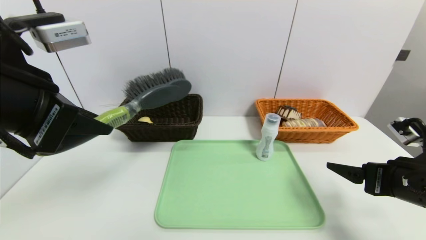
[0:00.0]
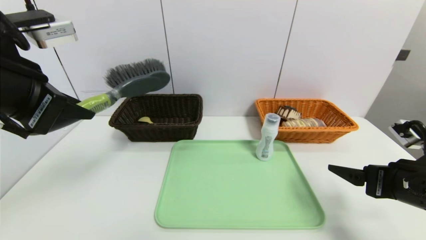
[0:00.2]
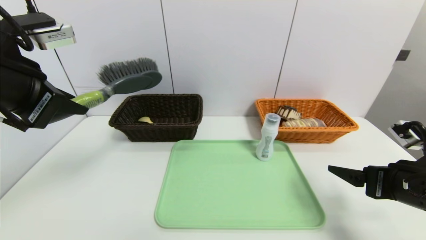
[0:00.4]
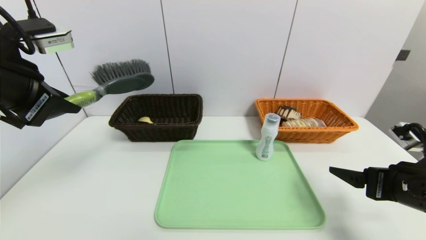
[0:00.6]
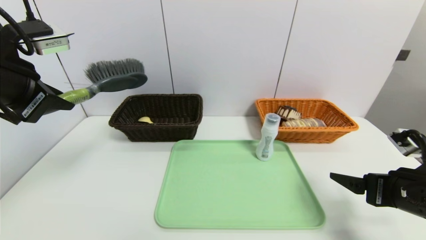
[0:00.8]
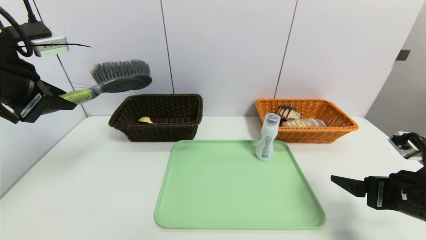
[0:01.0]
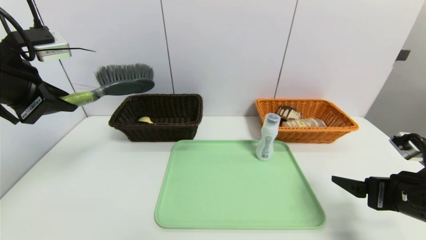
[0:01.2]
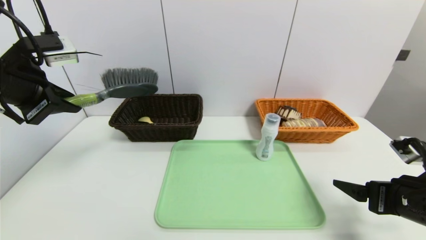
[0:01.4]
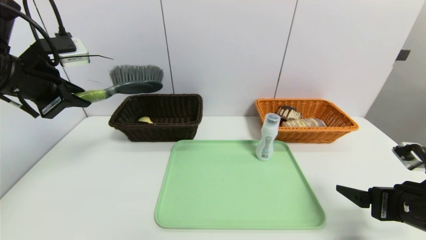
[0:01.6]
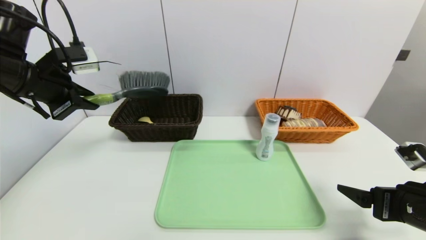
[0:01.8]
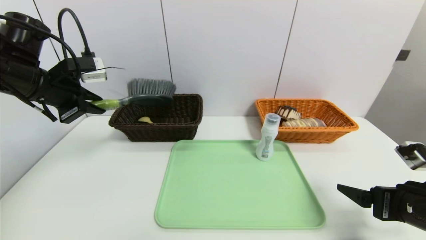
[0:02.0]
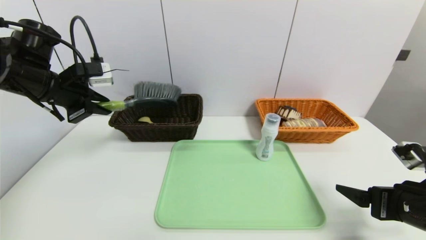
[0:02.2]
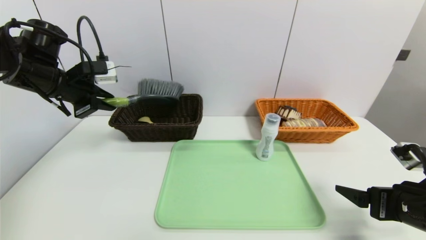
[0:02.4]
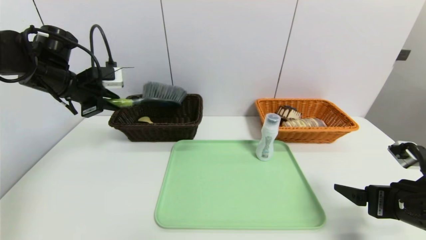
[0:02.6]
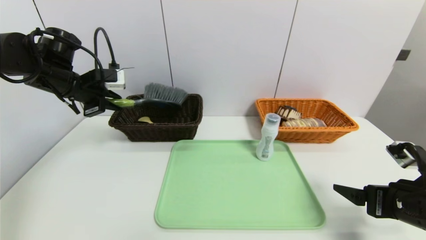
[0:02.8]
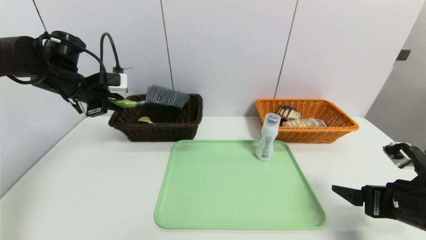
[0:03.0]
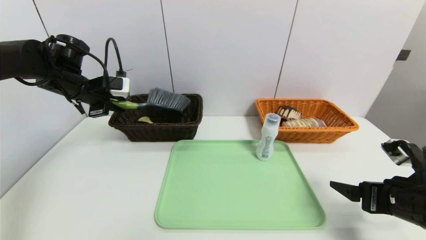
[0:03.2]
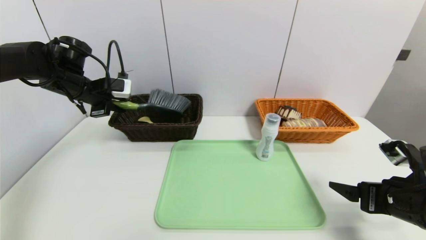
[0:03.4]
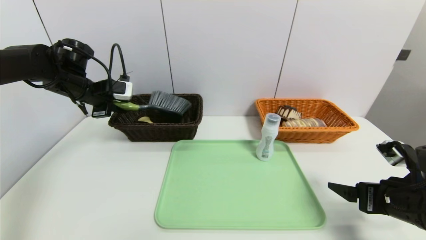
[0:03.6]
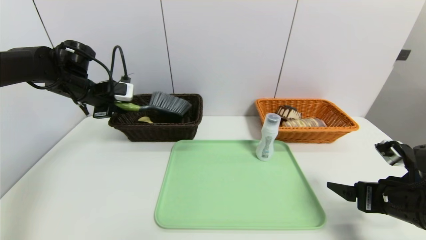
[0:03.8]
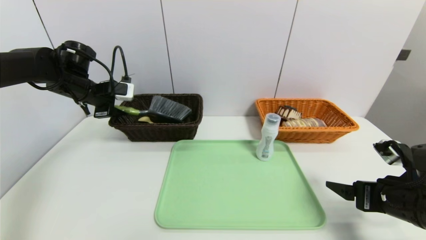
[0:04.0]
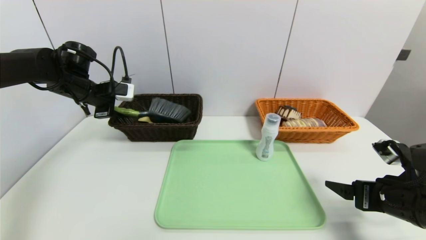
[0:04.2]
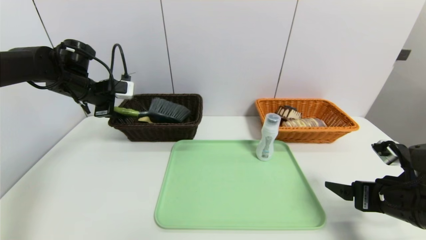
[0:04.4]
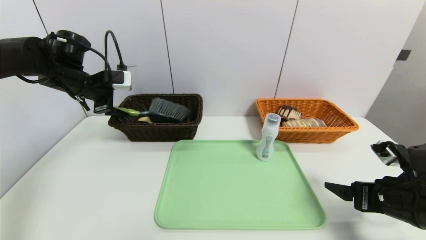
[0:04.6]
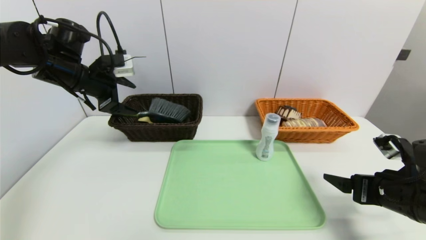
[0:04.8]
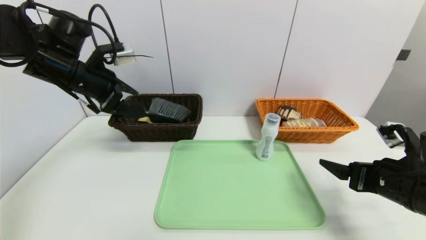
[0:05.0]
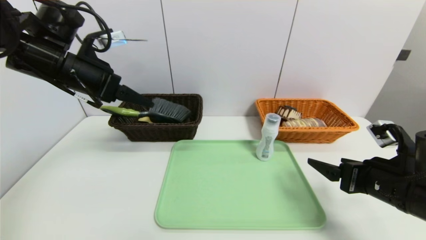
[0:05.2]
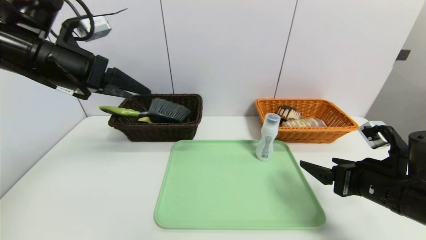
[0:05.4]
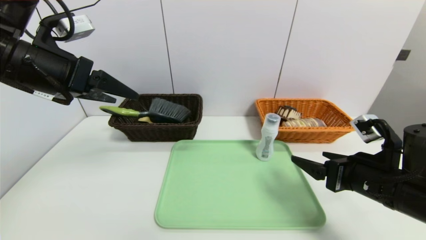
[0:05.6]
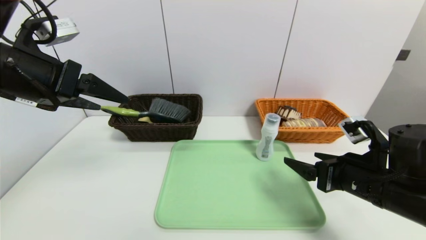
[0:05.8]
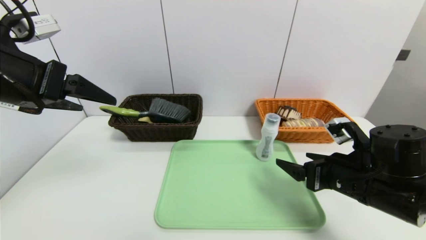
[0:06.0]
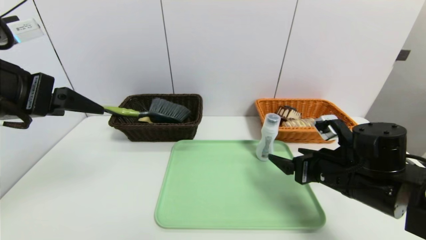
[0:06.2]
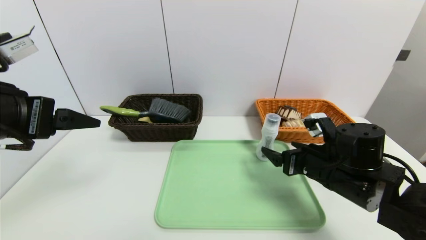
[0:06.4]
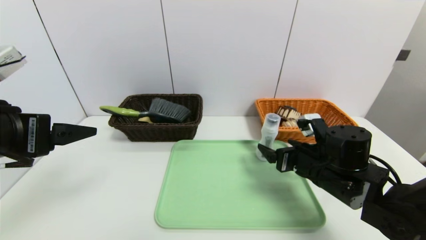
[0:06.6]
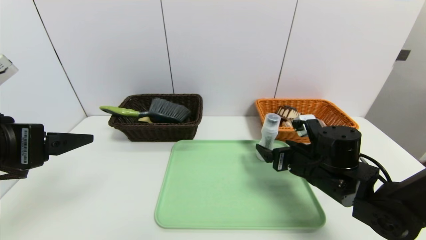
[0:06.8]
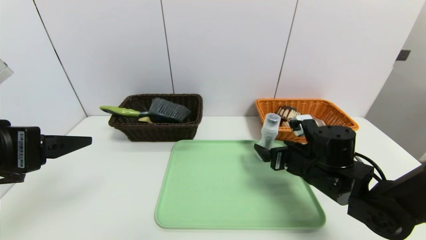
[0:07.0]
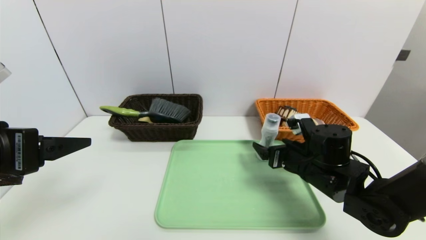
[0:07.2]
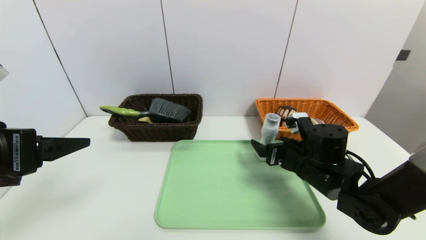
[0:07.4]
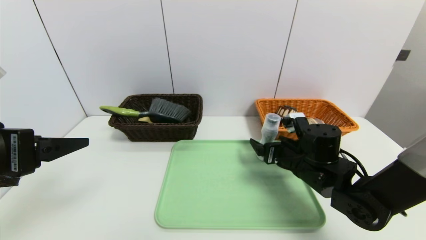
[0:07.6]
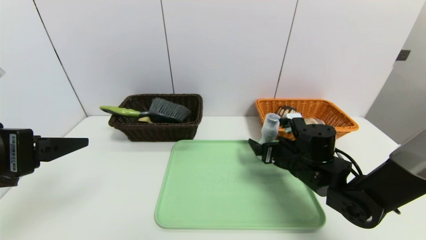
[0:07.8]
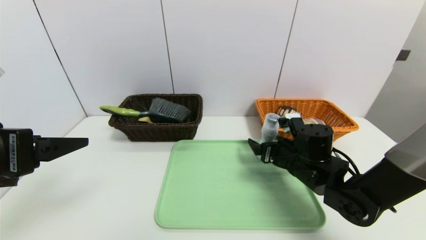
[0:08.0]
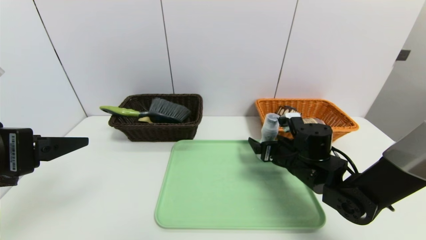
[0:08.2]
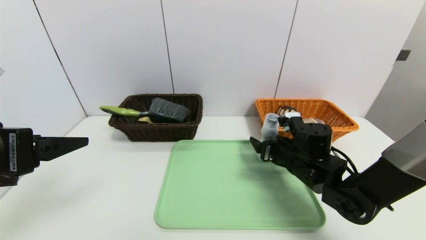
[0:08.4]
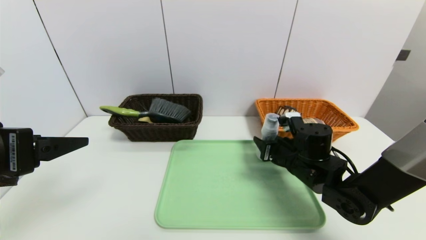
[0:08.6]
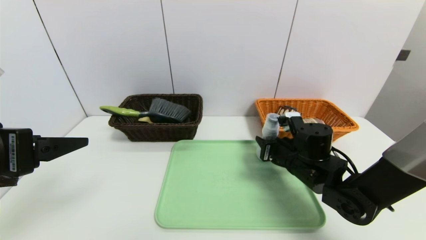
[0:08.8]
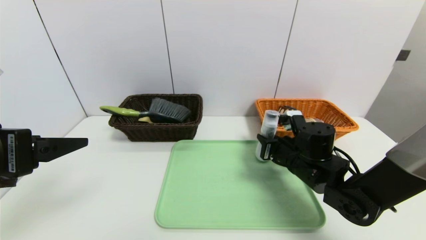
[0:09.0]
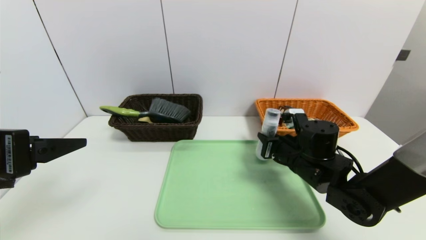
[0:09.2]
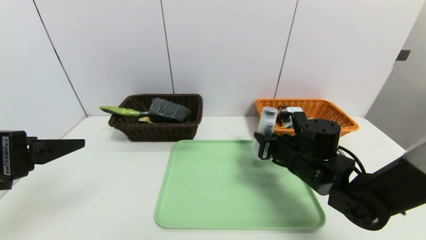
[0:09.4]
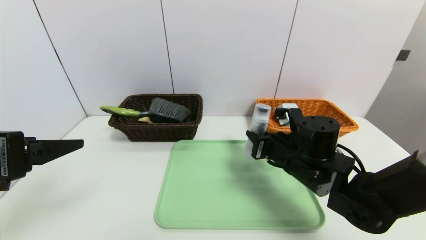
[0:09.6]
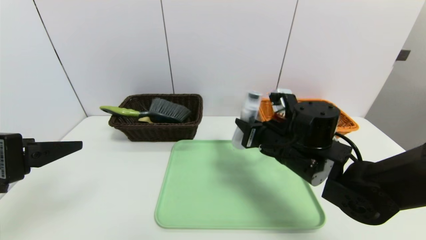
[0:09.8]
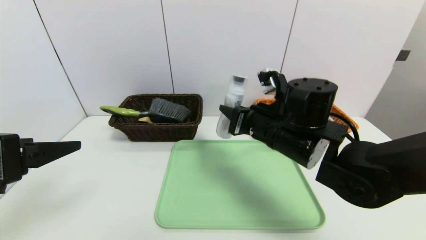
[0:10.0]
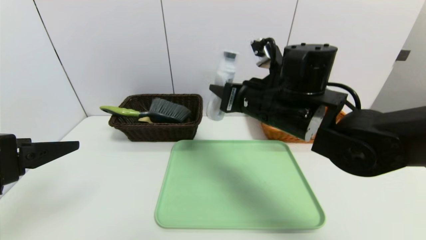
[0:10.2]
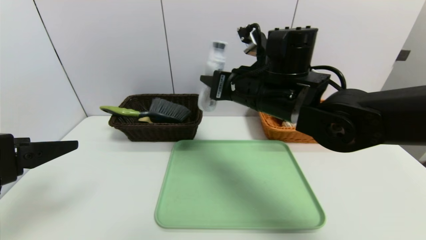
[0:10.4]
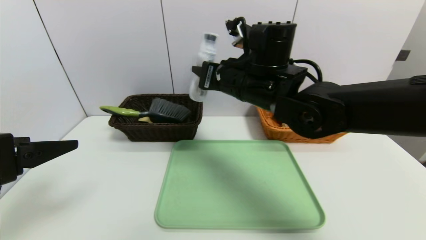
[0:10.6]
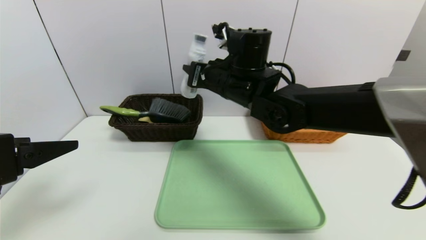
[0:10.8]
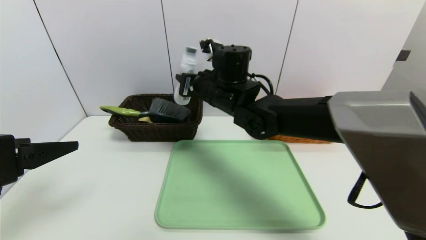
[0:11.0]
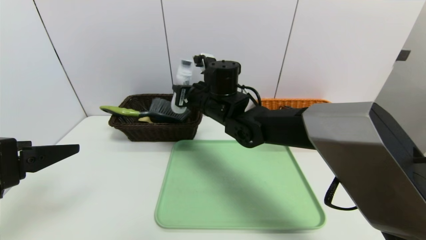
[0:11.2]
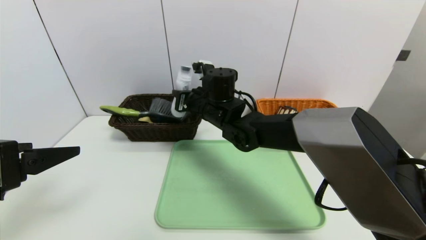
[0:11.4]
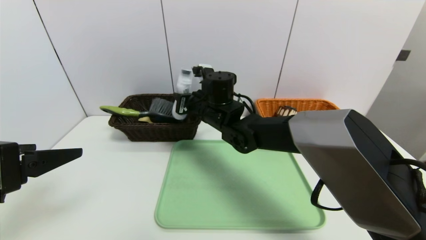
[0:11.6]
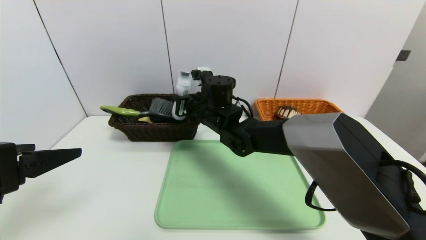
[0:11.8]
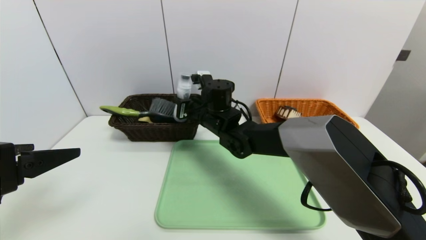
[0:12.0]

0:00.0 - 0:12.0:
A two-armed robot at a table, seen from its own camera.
Task of the whole recording: place the food in the right basket with the right gripper, and place the non food items in the left basket with the left gripper.
Step, 0:00.0 - 0:04.8: Grasp the brush and put it in the left basket.
0:00.0 - 0:01.6: The left gripper travels forward and to the left by roughly 15 cm.
0:01.6 - 0:03.0: The left gripper moves forward and downward, roughly 15 cm.
0:03.0 - 0:04.4: The left gripper opens.
0:04.4 - 0:06.0: The left gripper is displaced backward and upward by some 25 cm. Meanwhile the right gripper shifts approximately 5 cm to the left.
0:06.0 - 0:07.6: The left gripper heads backward and downward, covering some 10 cm, while the right gripper moves forward, about 10 cm.
0:07.6 - 0:09.0: The right gripper closes.
0:09.0 - 0:10.4: The right gripper heads upward and to the left, covering about 20 cm.
0:10.4 - 0:12.0: The right gripper travels downward, forward and to the left by about 15 cm.

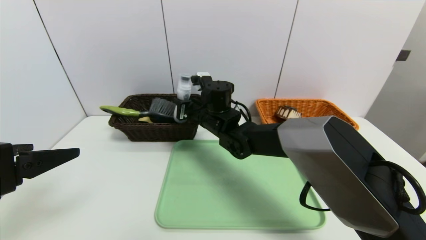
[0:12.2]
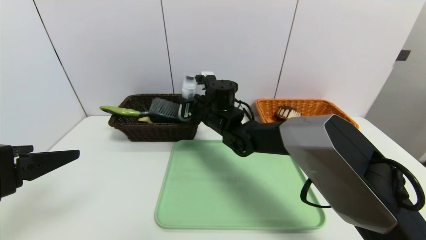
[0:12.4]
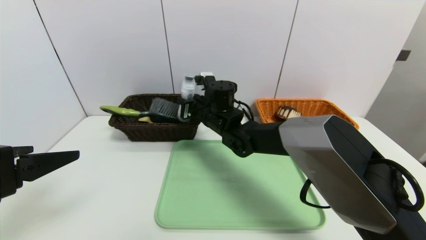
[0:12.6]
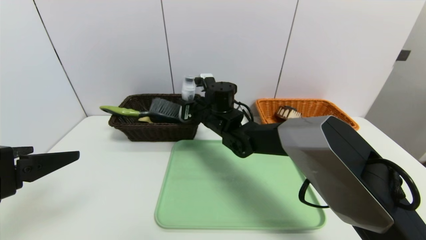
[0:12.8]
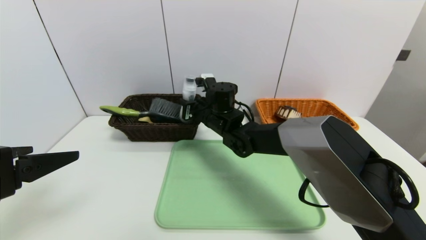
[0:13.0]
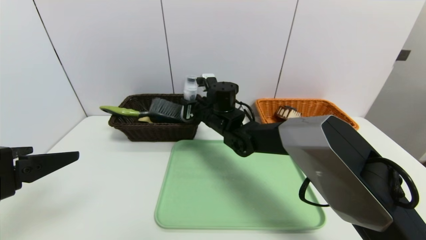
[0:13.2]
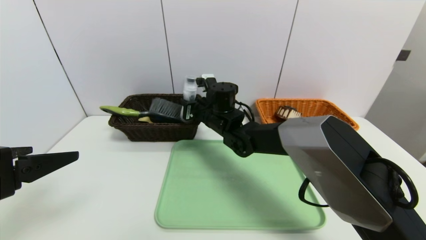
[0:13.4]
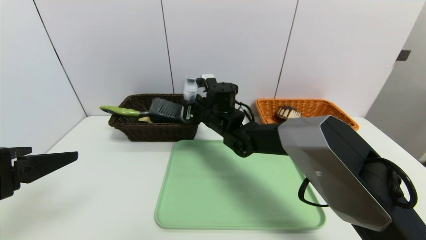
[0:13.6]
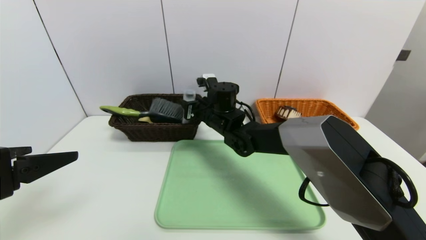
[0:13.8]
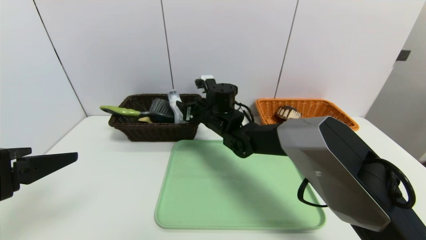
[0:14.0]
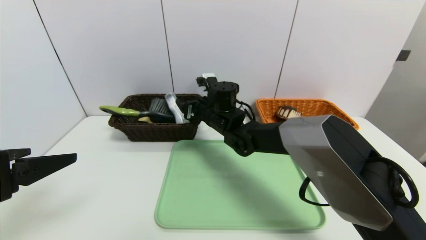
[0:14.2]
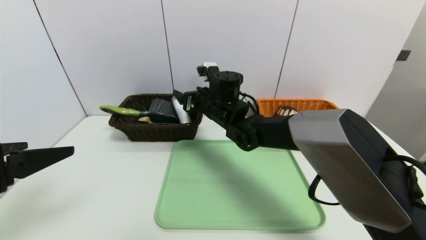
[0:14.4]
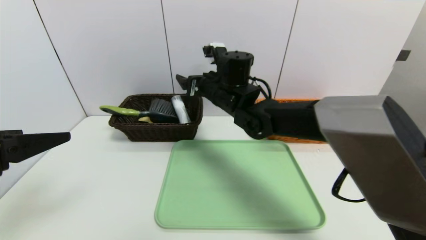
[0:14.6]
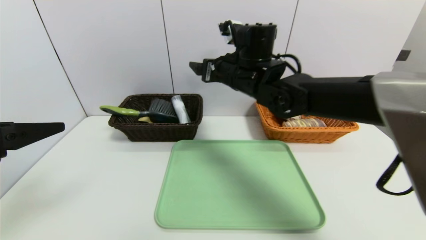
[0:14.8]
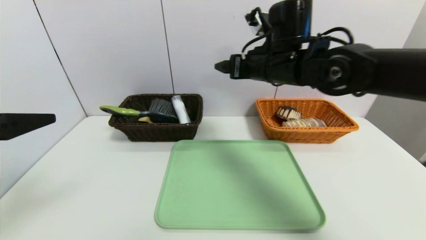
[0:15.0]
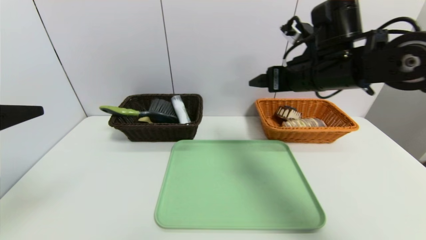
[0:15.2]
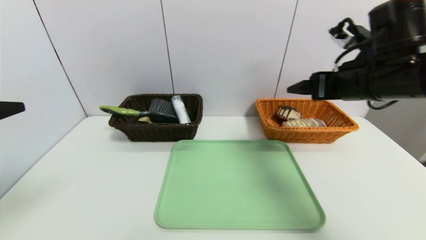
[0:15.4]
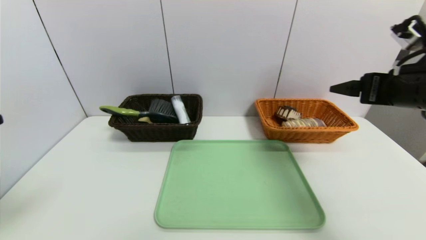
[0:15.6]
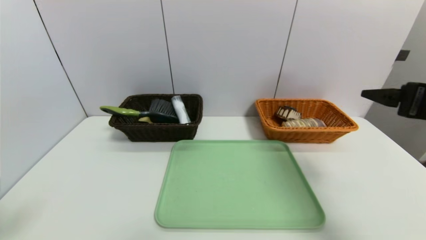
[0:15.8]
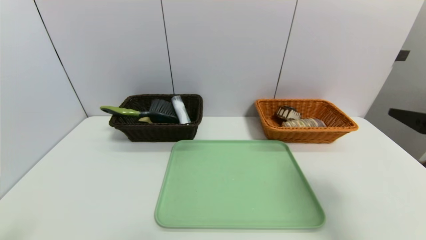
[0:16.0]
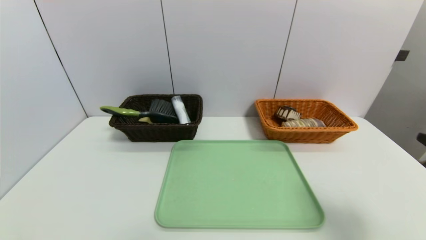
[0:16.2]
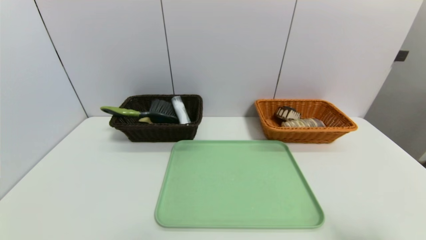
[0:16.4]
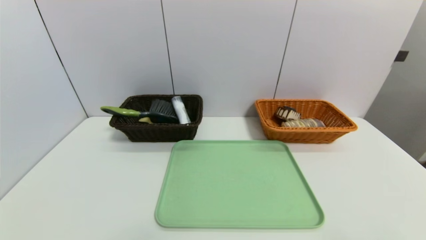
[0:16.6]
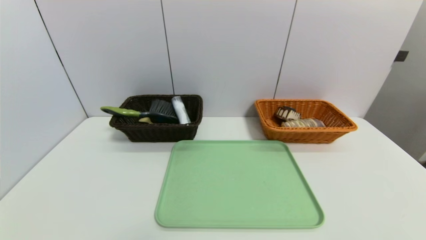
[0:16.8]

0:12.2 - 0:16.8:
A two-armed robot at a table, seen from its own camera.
Task of the whole recording: place the food in the right basket with the right gripper, and place the non food items in the left basket with the left gripper.
Step, 0:12.2 - 0:14.4: Grasp the washing liquid and put it in the left basket.
0:12.2 - 0:13.8: The grippers stay close to where they were, moving slightly.
0:13.8 - 0:15.2: The right gripper heads to the right, upward and backward, covering approximately 25 cm, and opens its fingers.
0:15.2 - 0:16.8: The right gripper travels backward and to the right by about 35 cm; the left gripper shifts roughly 20 cm backward and downward.
